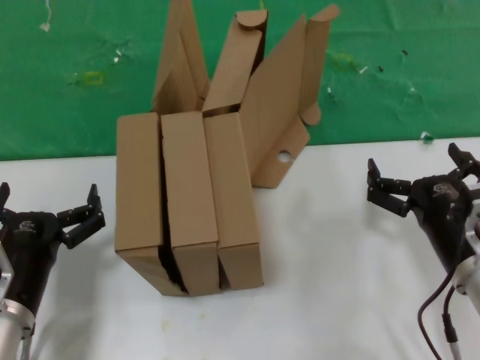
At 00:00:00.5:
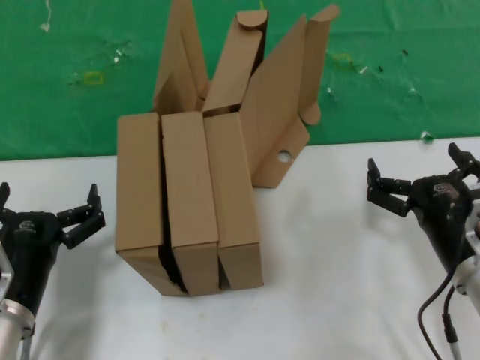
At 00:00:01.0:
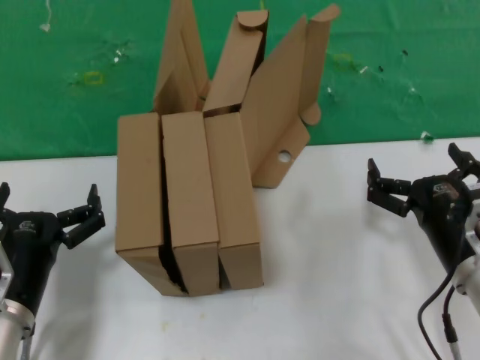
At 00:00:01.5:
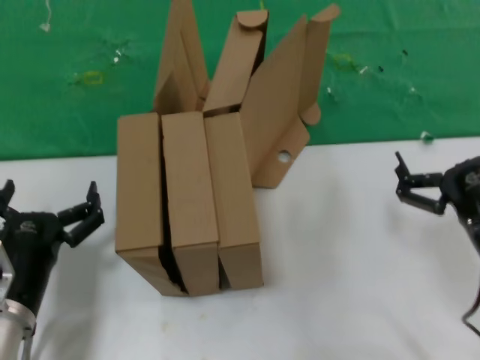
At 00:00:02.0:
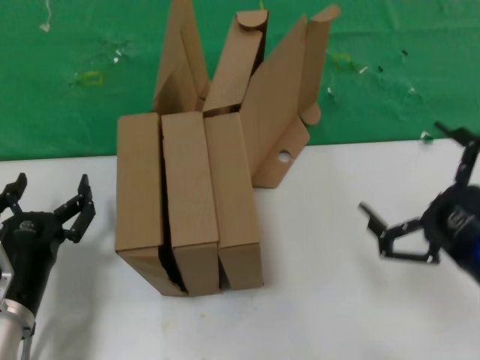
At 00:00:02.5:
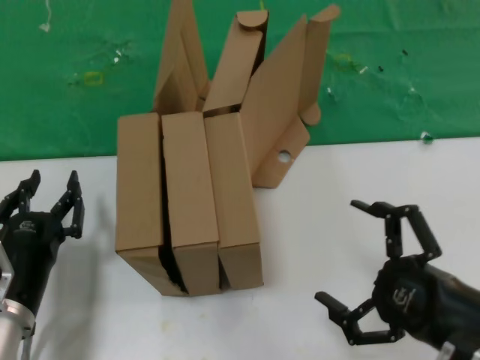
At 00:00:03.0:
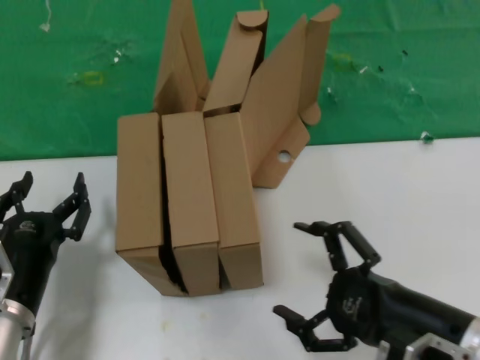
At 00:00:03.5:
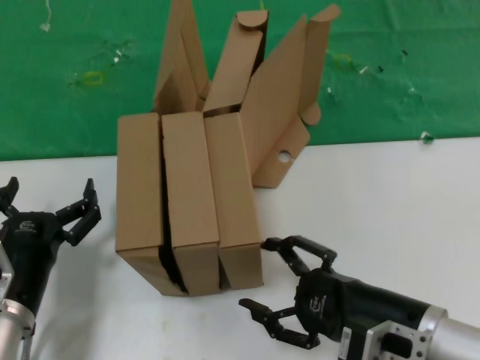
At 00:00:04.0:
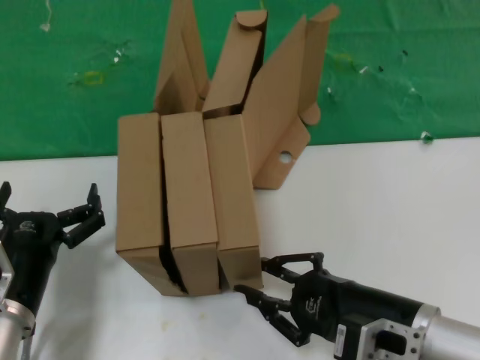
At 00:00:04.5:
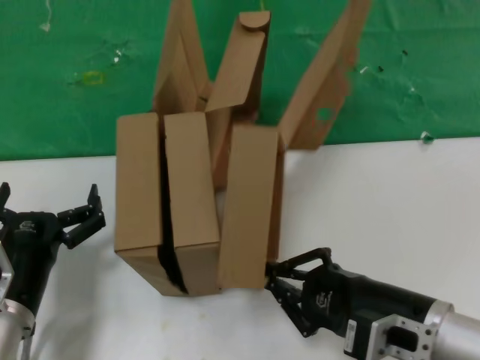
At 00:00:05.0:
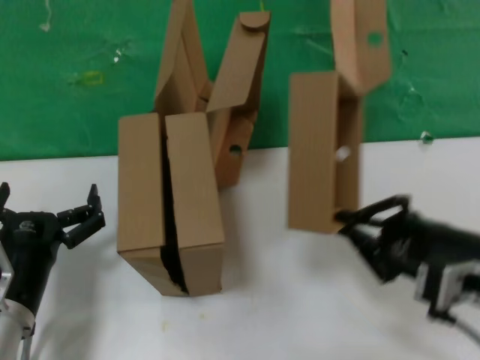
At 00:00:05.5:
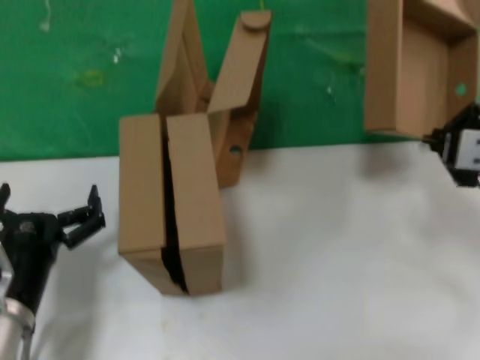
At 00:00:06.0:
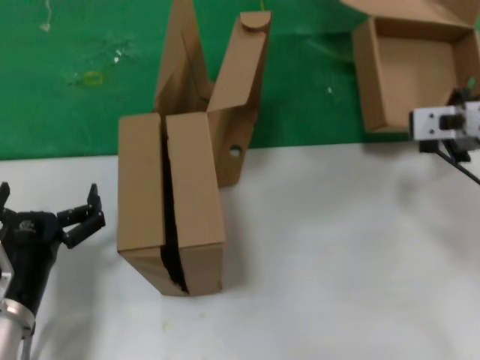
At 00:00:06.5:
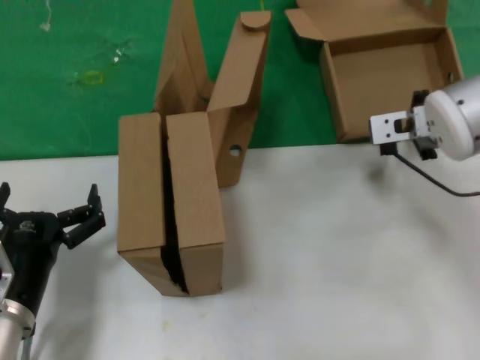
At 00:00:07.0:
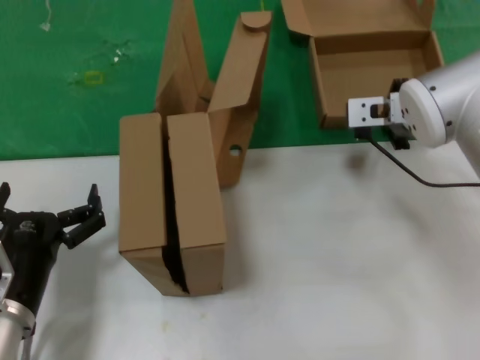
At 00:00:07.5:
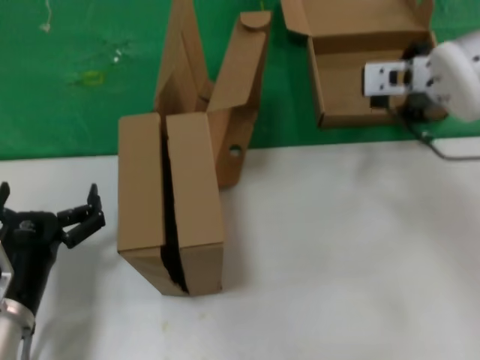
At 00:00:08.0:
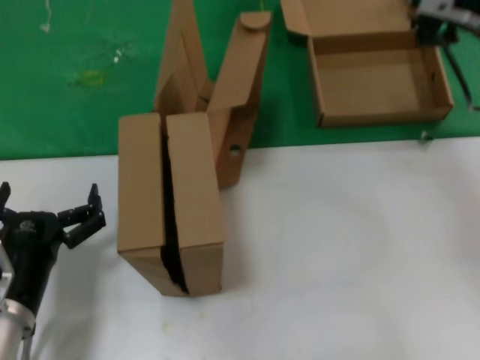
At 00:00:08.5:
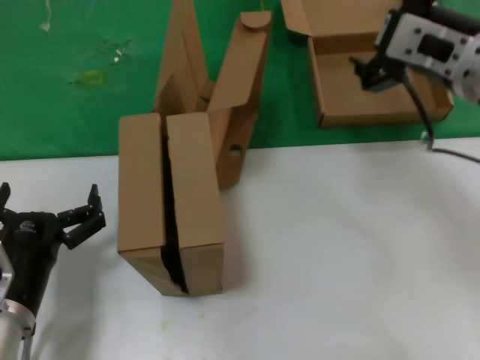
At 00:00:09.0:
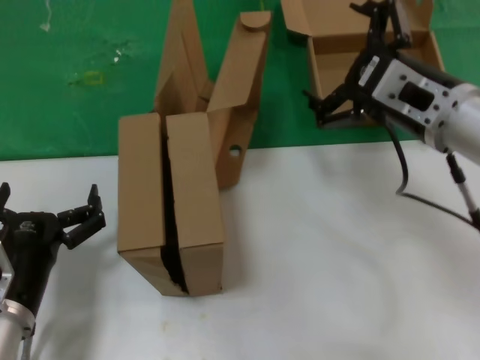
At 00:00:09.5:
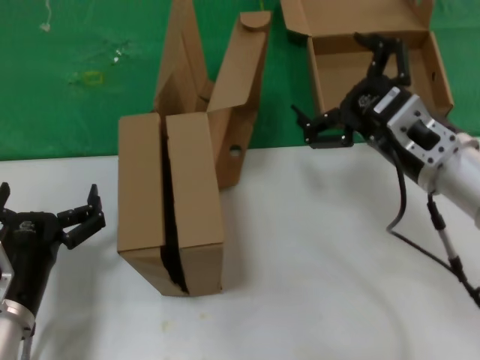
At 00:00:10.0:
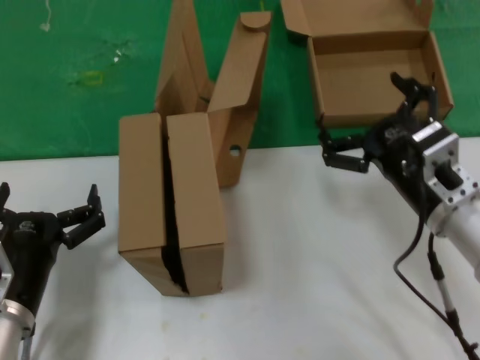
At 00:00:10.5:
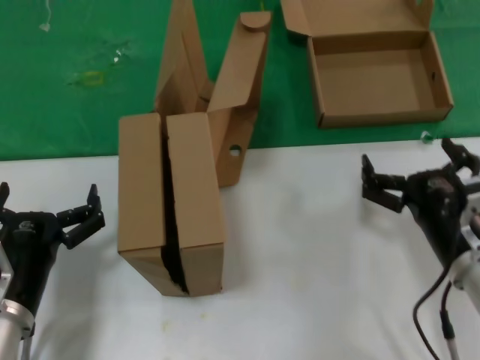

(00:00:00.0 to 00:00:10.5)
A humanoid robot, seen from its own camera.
Task of the whole recording: pick up the paper box and put it at the back.
Step, 00:00:00.0 - 00:00:04.0: Grasp the paper box.
Step, 00:00:04.5 - 00:00:07.0: Place the paper box on the table.
00:00:00.0 - 00:00:02.0: The right hand goes approximately 10 cm backward and upward.
00:00:02.0 - 00:00:04.0: The right hand moves to the left and downward, approximately 10 cm.
00:00:04.0 - 00:00:06.5: The right hand heads forward and upward, covering about 25 cm.
00:00:06.5 - 00:00:08.5: The right hand goes about 15 cm backward and upward.
00:00:08.5 - 00:00:10.5: The right hand moves downward, approximately 25 cm.
